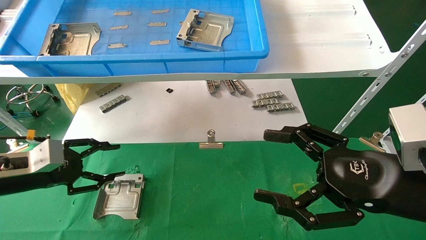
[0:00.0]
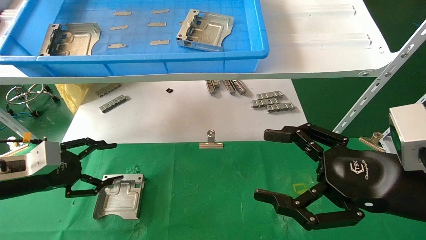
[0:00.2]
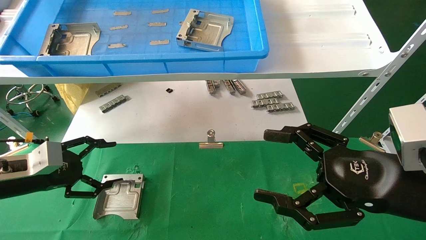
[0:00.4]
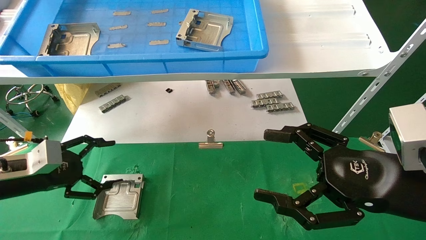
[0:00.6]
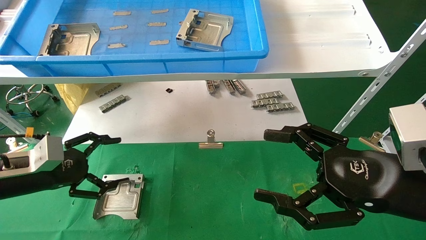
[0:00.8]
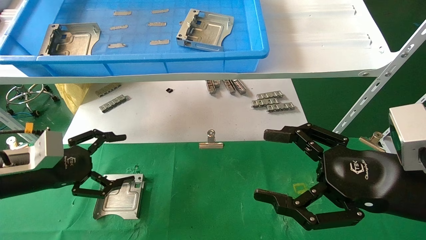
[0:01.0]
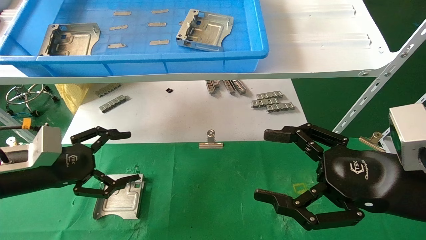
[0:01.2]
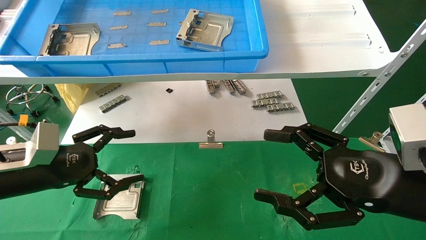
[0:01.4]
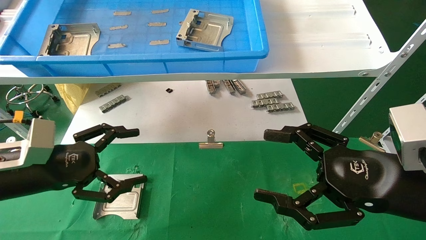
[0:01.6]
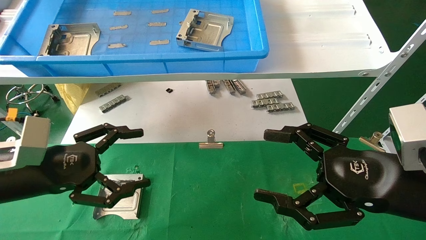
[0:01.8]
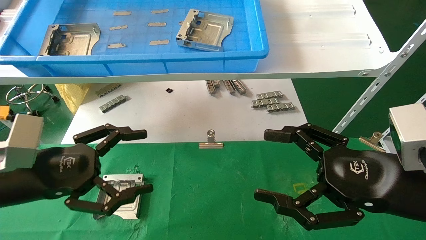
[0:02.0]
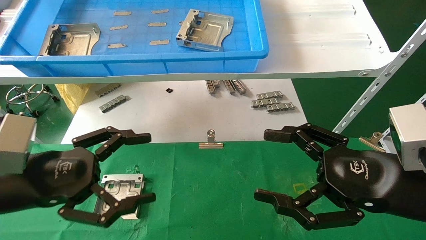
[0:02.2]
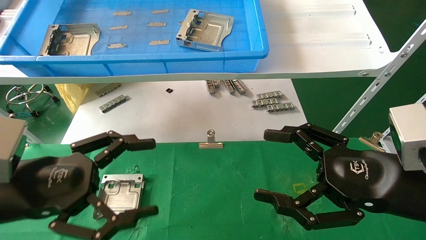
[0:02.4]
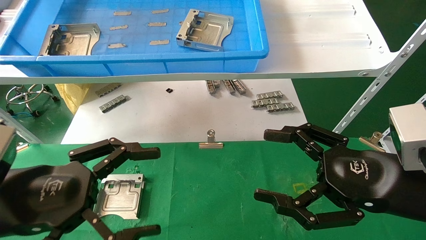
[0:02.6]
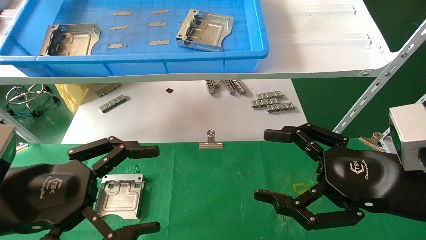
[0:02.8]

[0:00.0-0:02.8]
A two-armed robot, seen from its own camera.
Task of the whole recording: use the mechanical arm to pick up the parts and place them on the table.
0:00.0 to 0:01.4: The left gripper is displaced to the right by approximately 5 cm, and opens.
0:01.4 to 0:02.8: The left gripper moves backward and to the right, roughly 10 cm.
